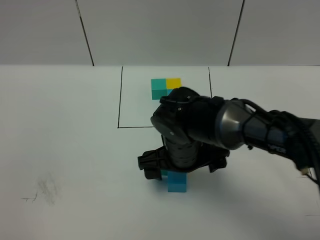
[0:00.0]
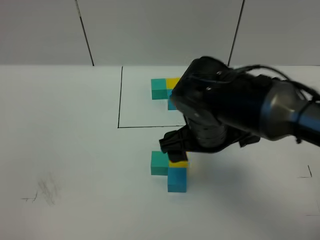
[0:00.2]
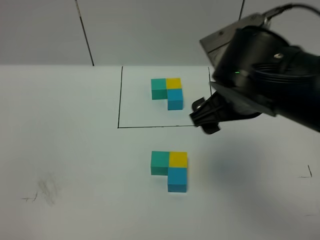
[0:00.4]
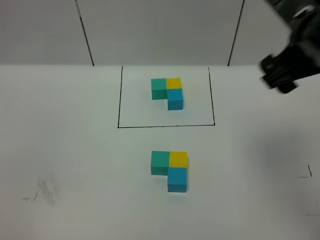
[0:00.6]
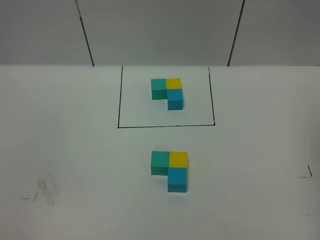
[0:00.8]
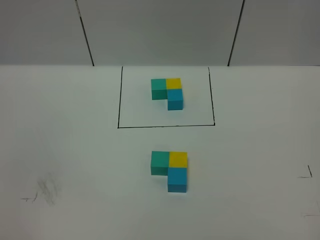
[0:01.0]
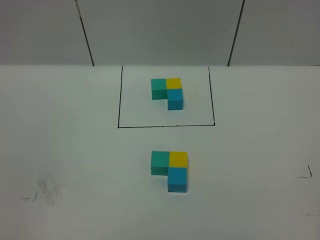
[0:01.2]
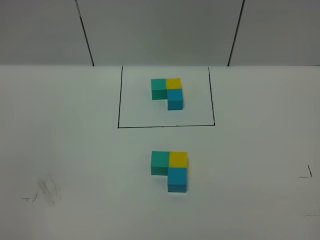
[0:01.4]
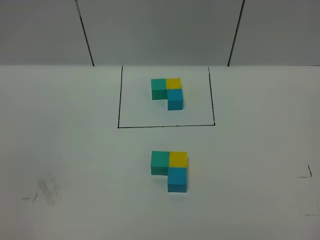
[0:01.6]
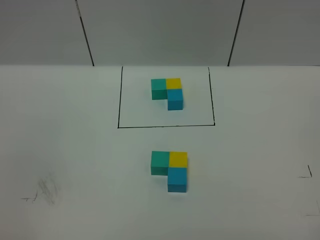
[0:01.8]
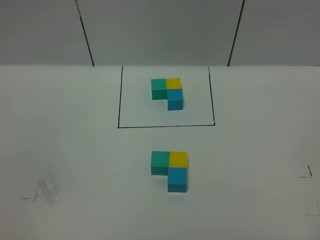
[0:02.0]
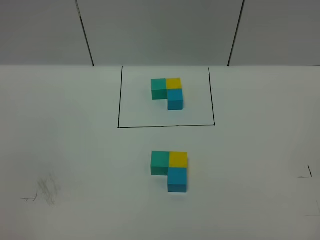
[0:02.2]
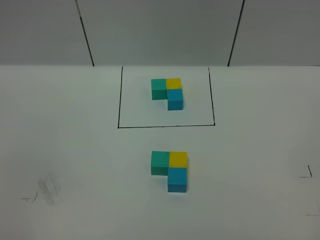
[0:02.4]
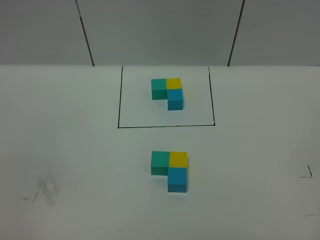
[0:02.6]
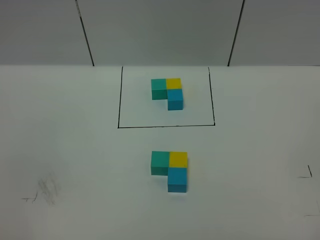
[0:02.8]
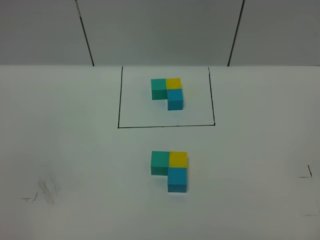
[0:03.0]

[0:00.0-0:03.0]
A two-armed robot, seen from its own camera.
Task of the whole recording: According to the building block template in front, assemble the scattered blocks together.
0:00.0 to 0:01.6: The right gripper heads to the right, backward and upward, covering approximately 40 cm.
